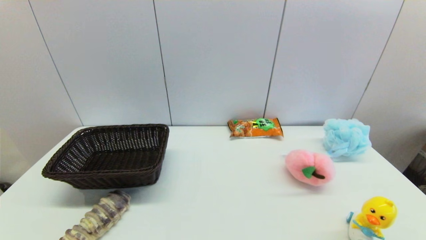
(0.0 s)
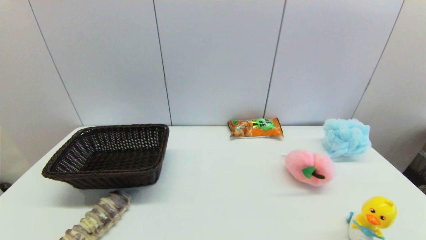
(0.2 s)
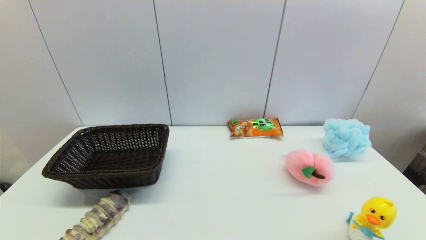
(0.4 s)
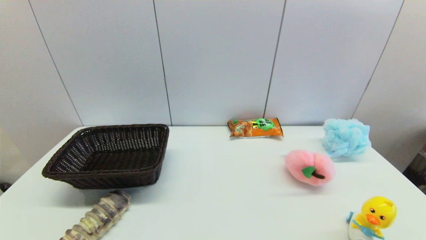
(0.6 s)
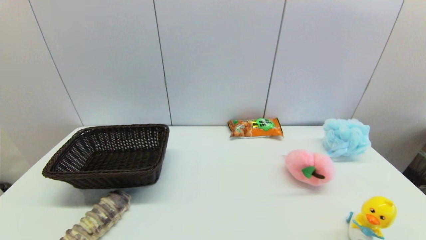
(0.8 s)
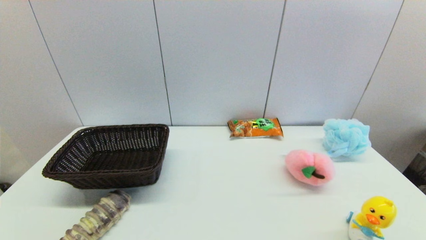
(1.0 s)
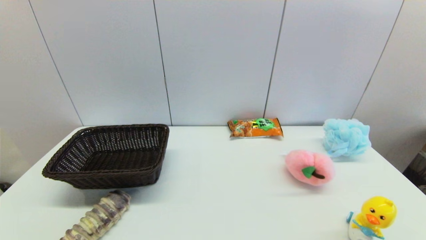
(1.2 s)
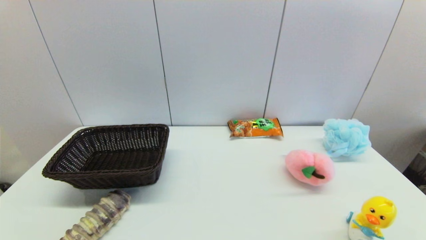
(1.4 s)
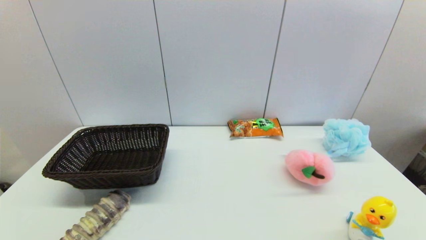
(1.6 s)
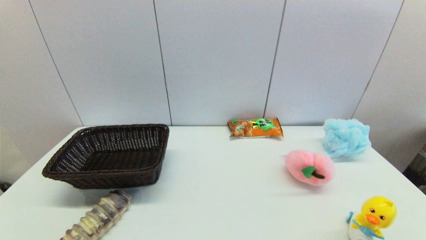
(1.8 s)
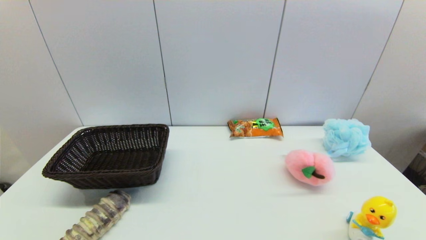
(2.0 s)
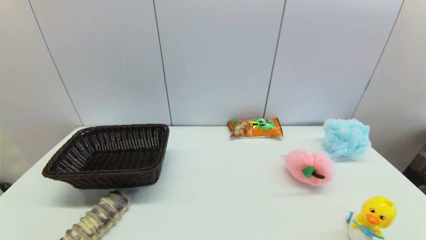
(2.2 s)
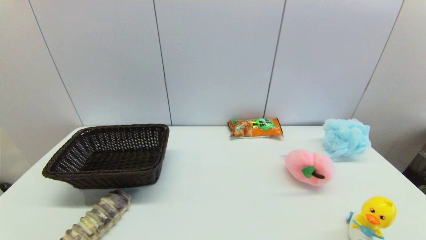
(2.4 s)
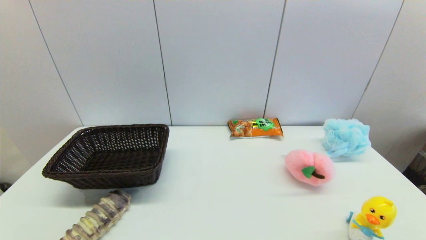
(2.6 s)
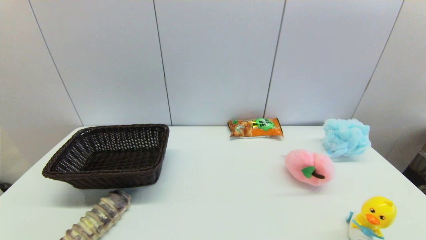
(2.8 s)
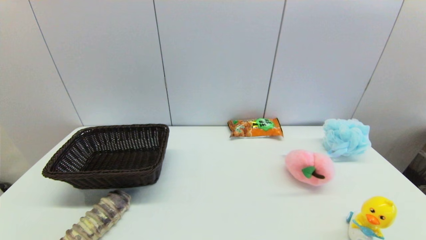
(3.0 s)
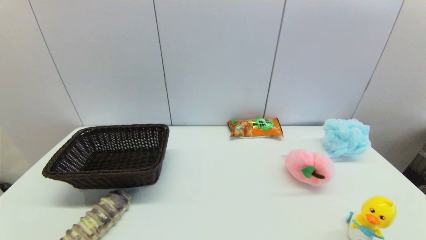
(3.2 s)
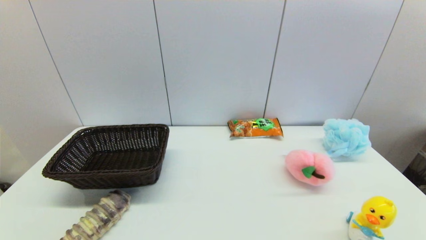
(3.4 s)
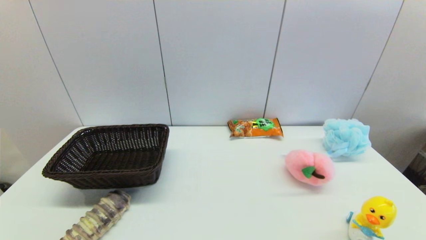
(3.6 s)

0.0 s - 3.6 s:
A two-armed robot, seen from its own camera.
1.8 s - 3.6 s: The two grippers keep their place.
